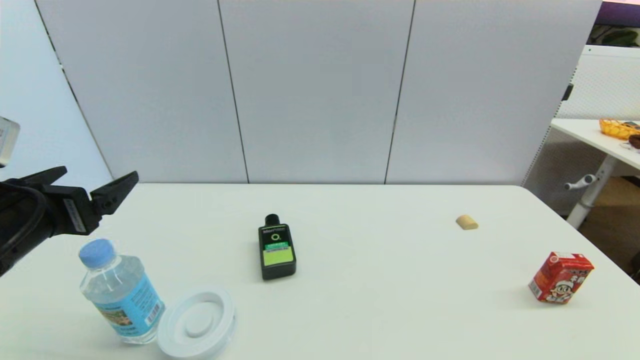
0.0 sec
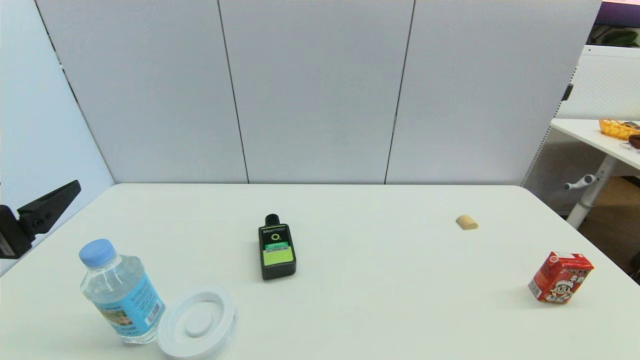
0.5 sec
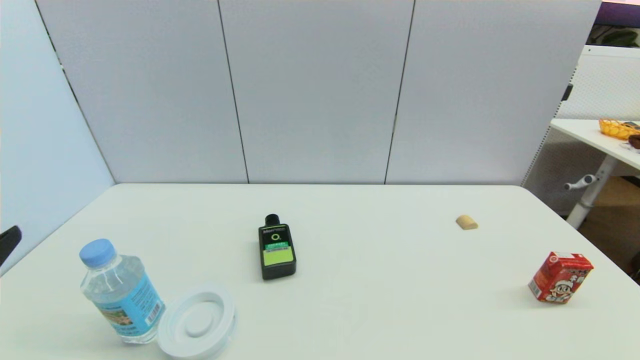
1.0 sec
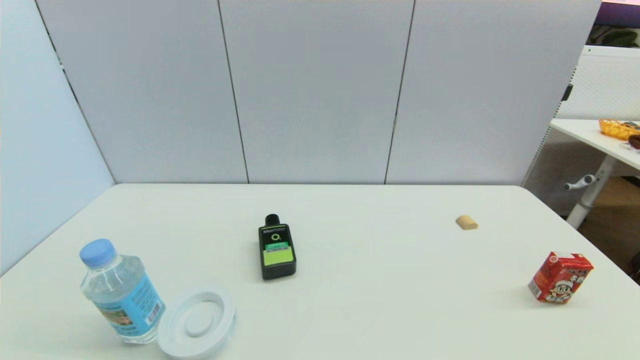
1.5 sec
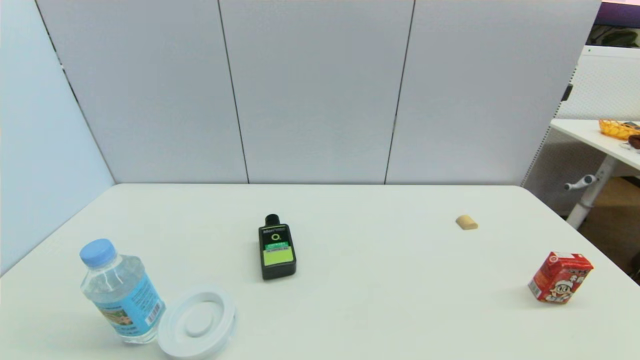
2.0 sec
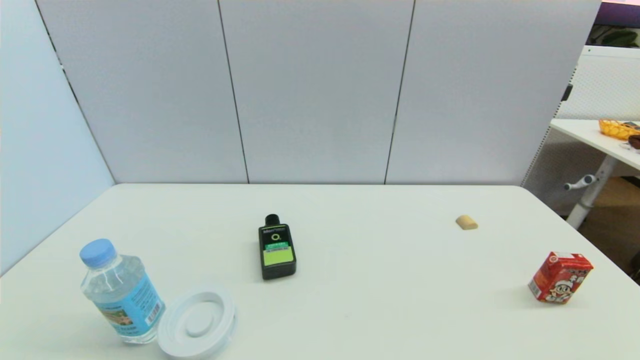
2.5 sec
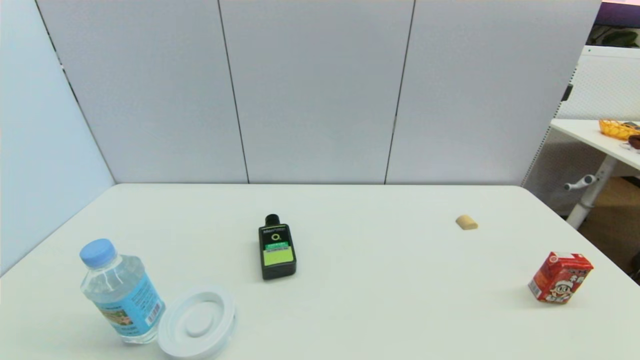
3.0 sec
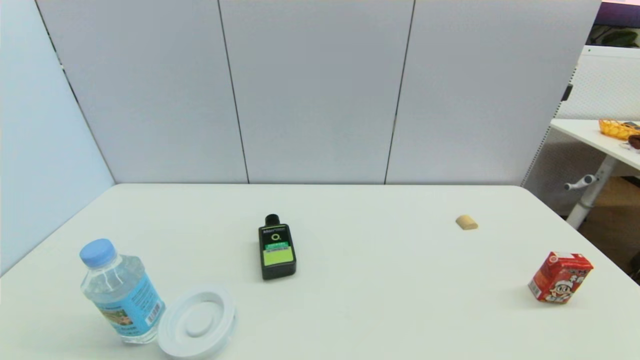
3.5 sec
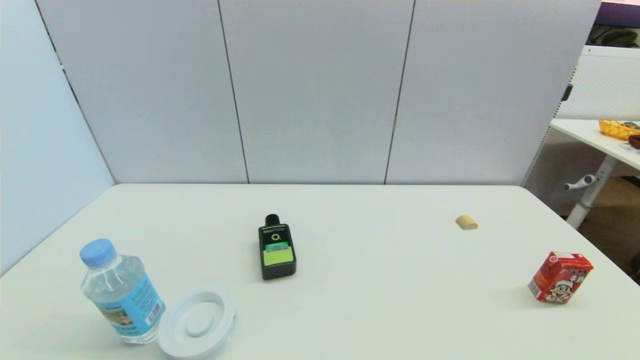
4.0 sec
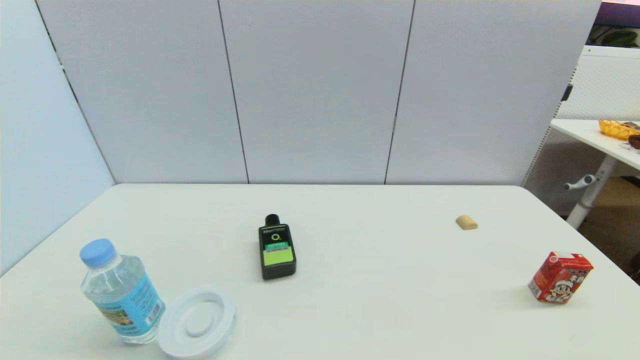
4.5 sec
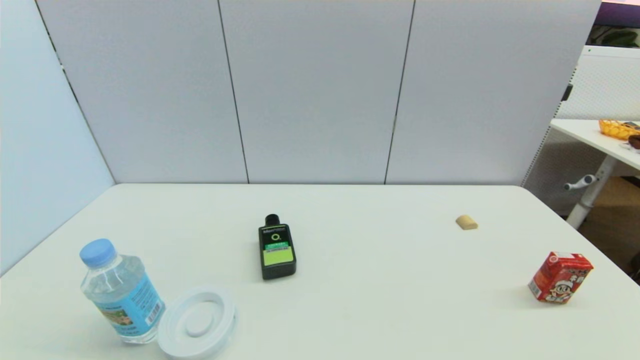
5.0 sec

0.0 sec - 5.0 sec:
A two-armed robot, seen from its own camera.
0.0 sec - 2.5 sec: The left gripper shifts some 25 cm backward and downward.

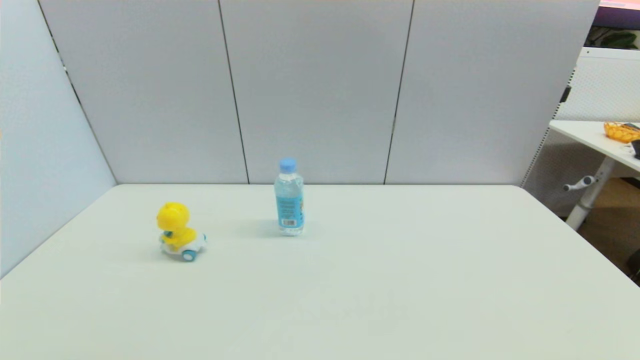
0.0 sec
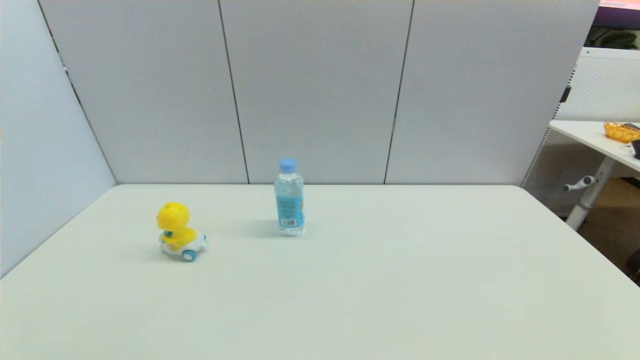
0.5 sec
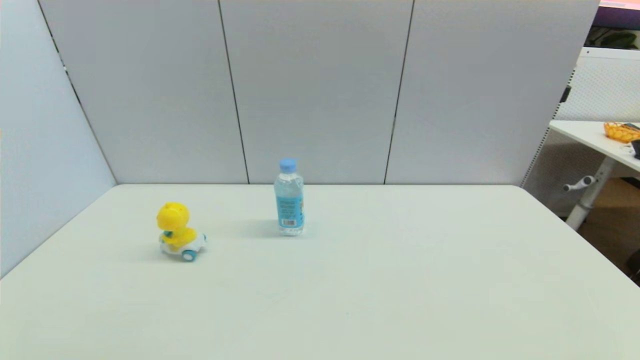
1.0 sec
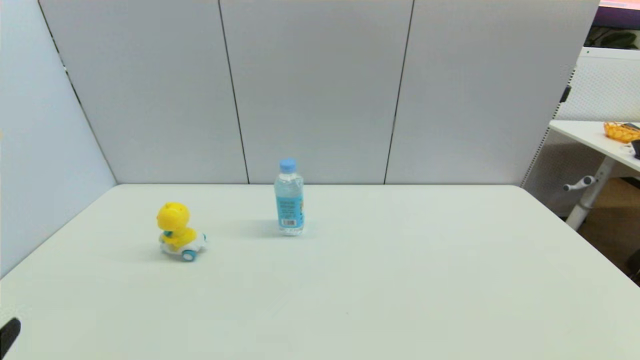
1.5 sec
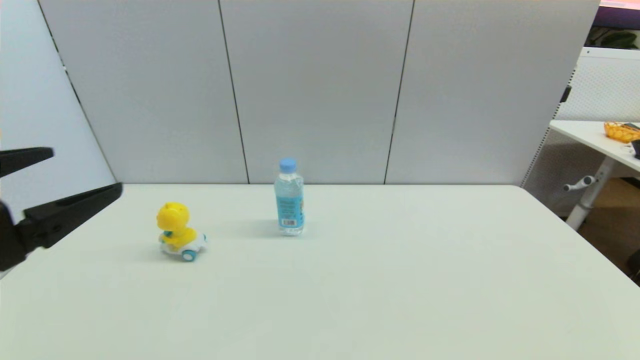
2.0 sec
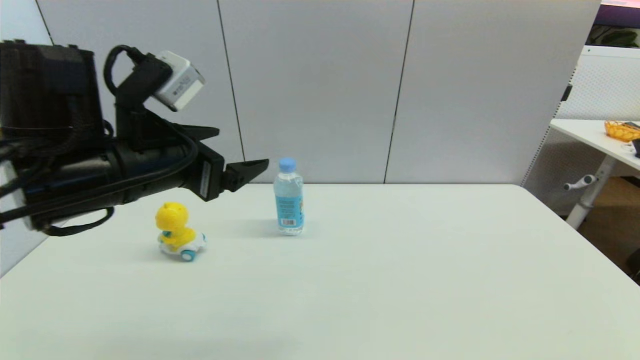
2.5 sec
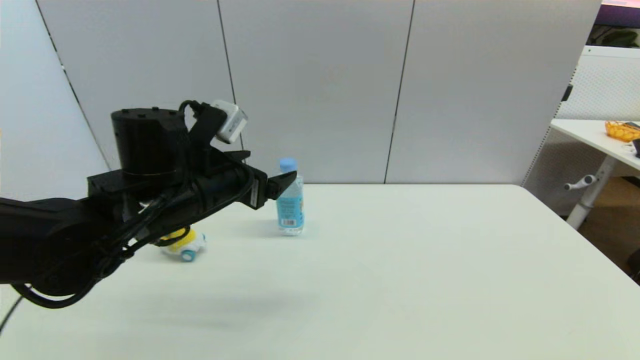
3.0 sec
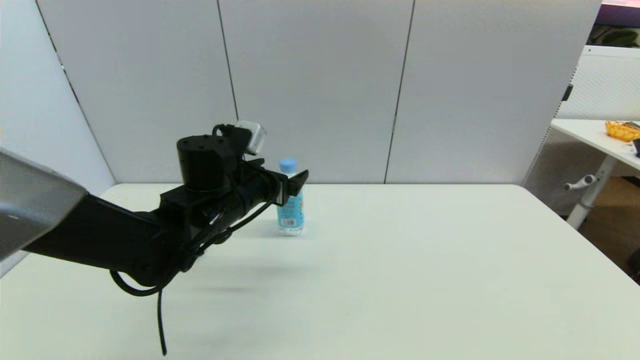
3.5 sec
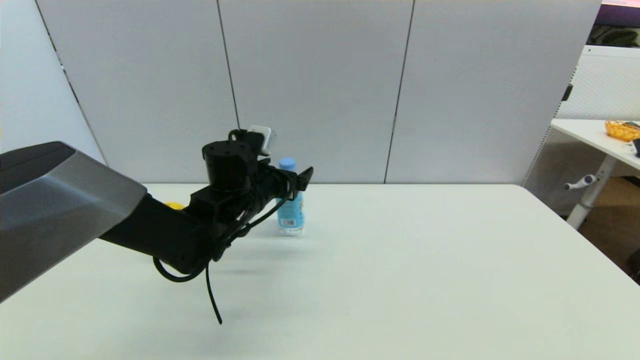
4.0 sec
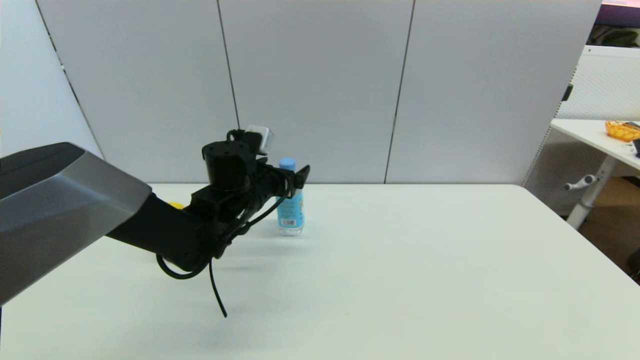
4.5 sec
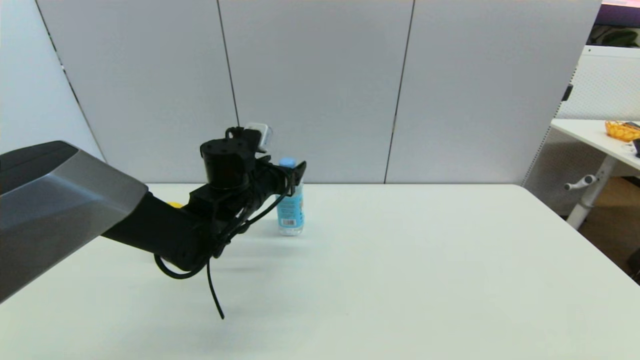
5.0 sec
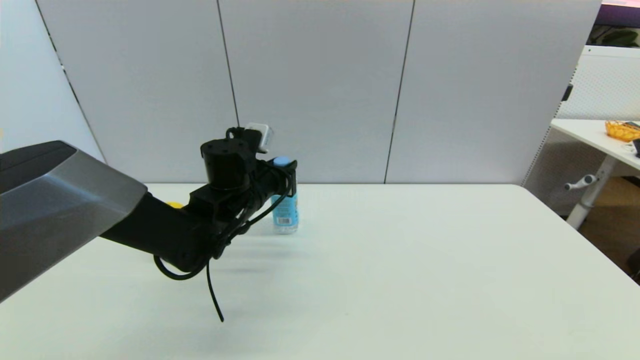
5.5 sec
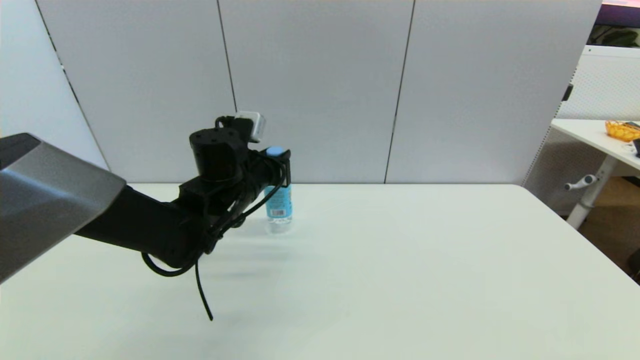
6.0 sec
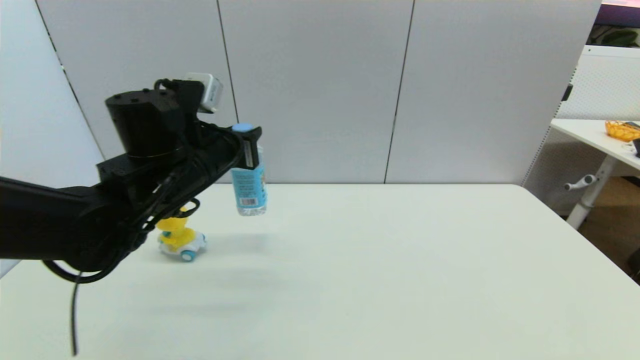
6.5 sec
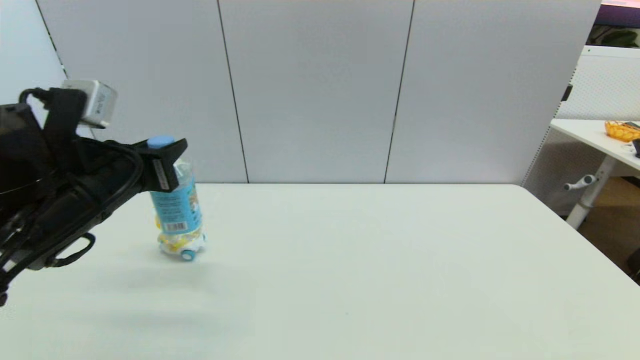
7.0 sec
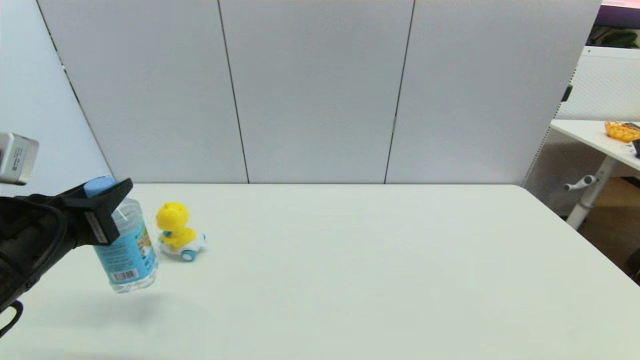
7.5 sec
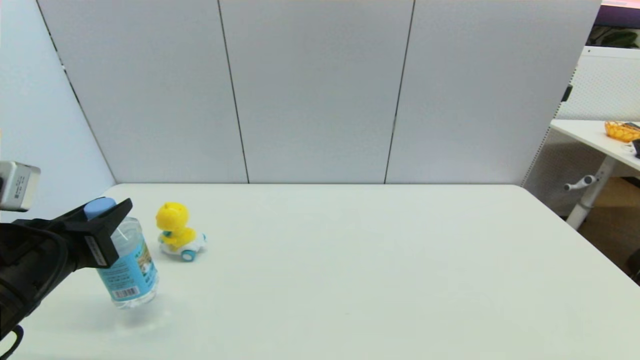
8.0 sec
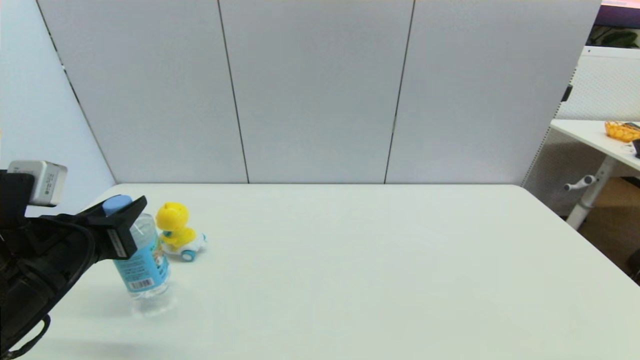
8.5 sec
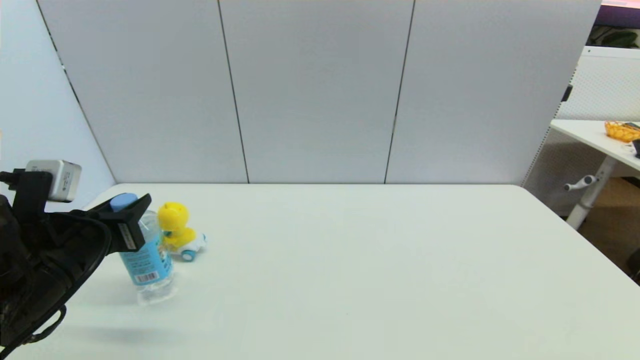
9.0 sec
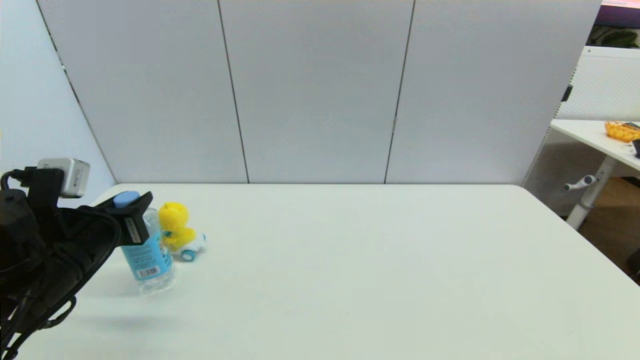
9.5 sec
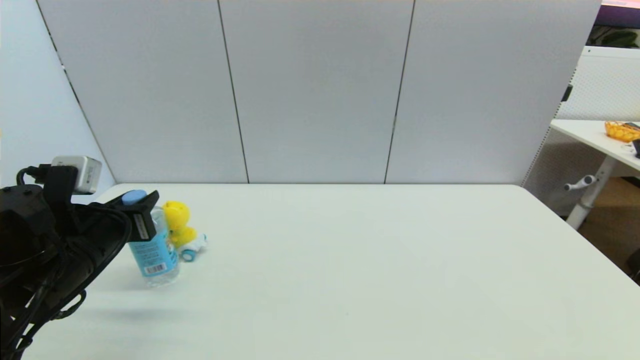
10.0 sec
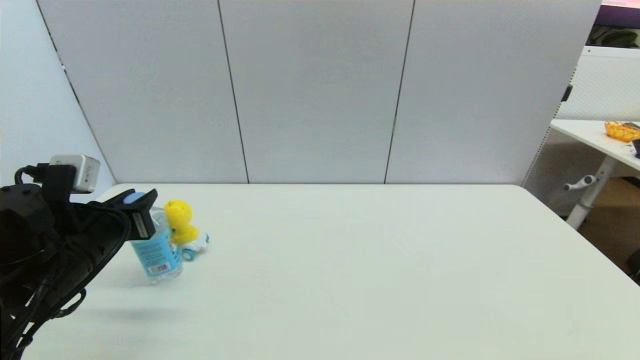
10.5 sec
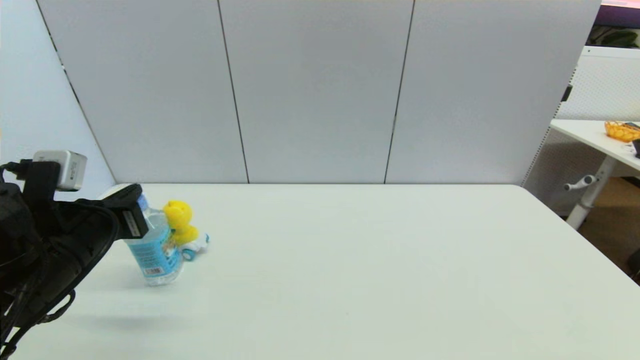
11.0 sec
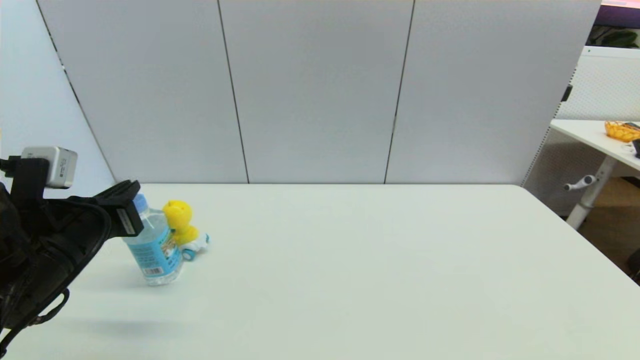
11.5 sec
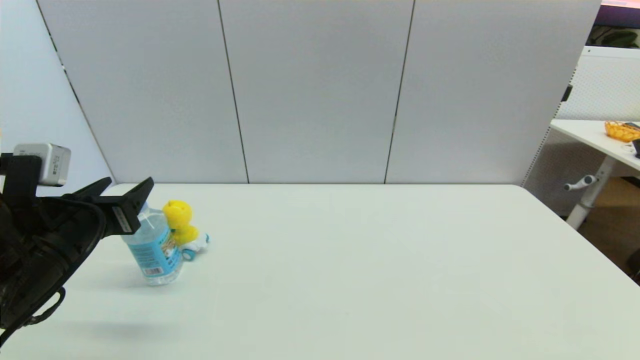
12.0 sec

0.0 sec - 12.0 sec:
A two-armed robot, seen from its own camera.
Step, 1.5 sec - 5.5 sec: Grasp the soda water with left gripper.
Step, 6.0 sec - 10.5 sec: Place the soda water on the table with left gripper.
0.0 sec - 2.0 sec: The left gripper is displaced upward and forward by approximately 25 cm.
2.0 sec - 4.0 sec: The left gripper moves forward, to the right and downward, approximately 30 cm.
4.0 sec - 6.0 sec: The left gripper closes its fingers.
6.0 sec - 8.0 sec: The left gripper is displaced backward and to the left by roughly 25 cm.
8.0 sec - 10.0 sec: The left gripper goes about 5 cm forward.
10.0 sec - 12.0 sec: The grippers stay close to where they were, moving slightly.

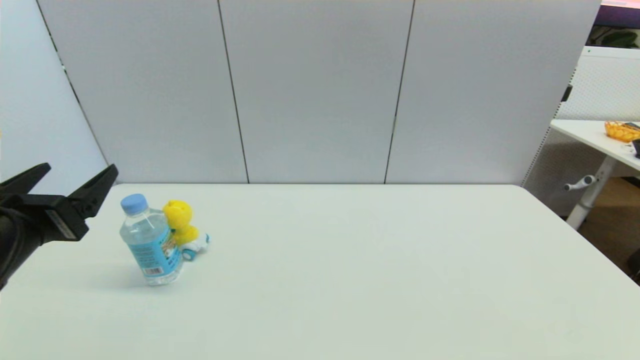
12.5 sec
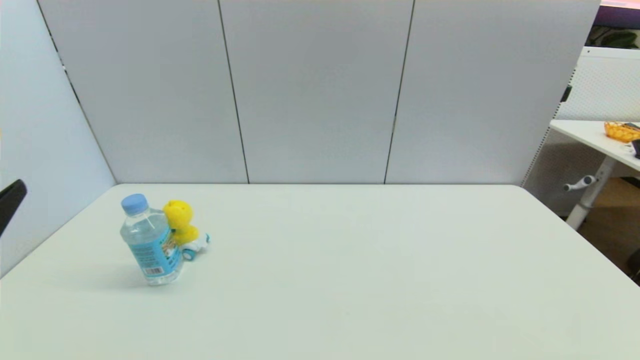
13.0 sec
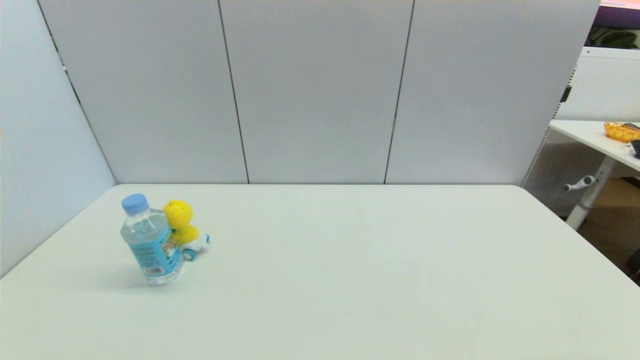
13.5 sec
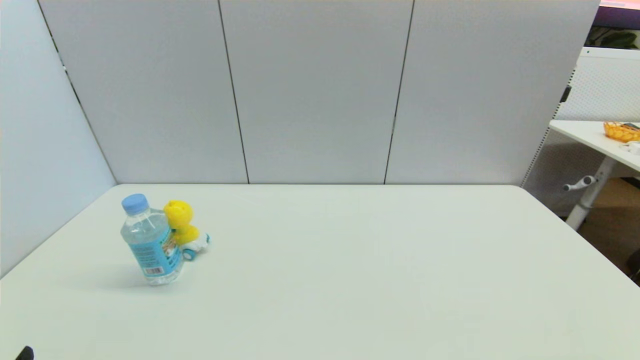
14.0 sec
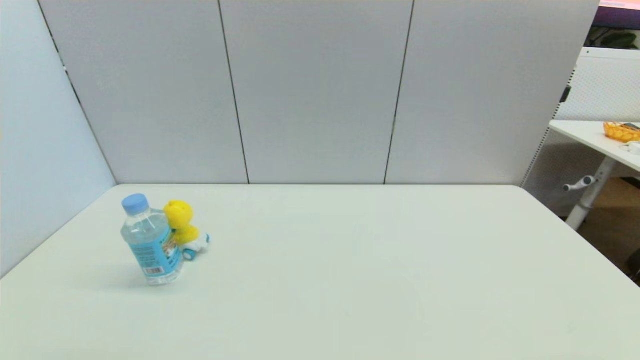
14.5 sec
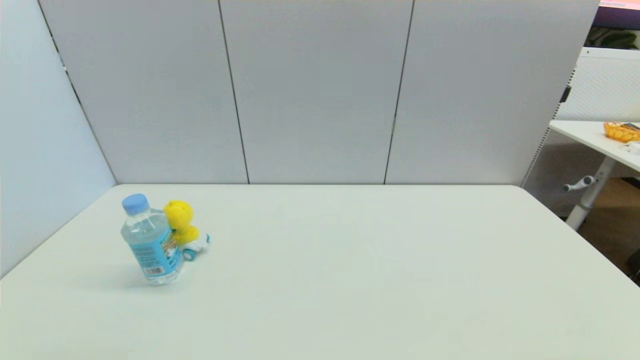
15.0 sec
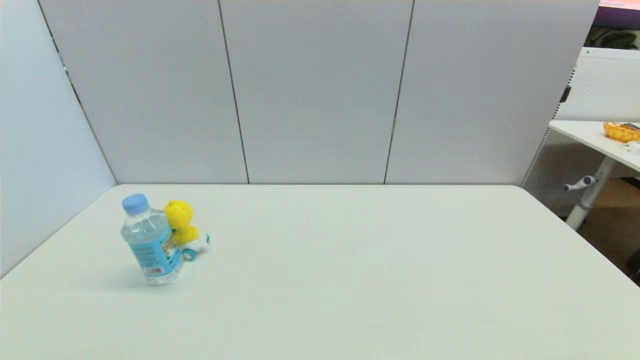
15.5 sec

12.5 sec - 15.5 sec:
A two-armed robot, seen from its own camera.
12.5 sec - 14.0 sec: The left gripper is displaced backward and downward by about 20 cm.
